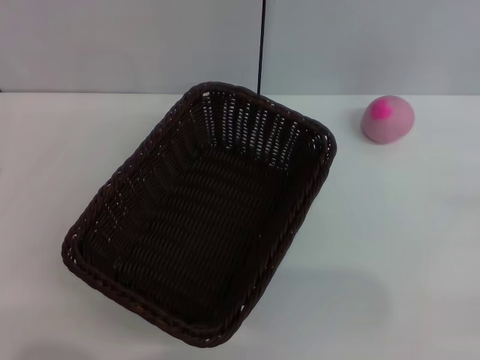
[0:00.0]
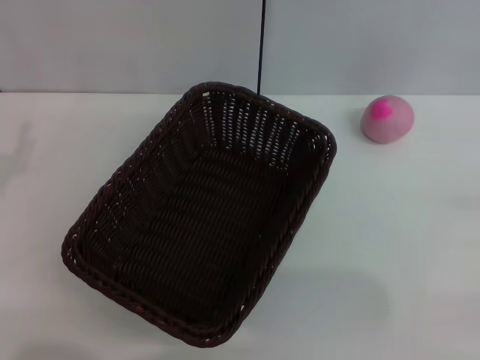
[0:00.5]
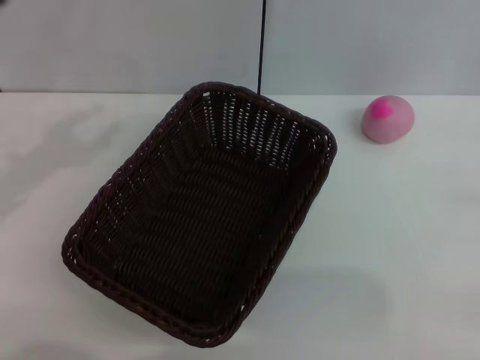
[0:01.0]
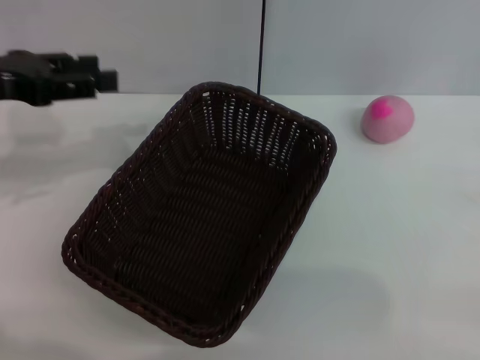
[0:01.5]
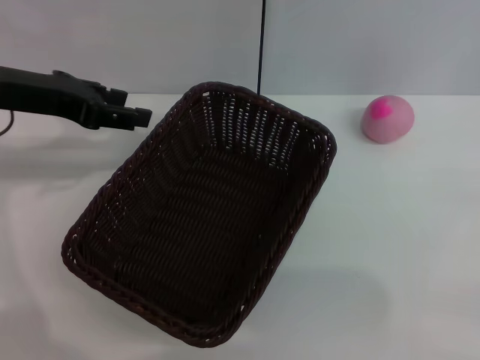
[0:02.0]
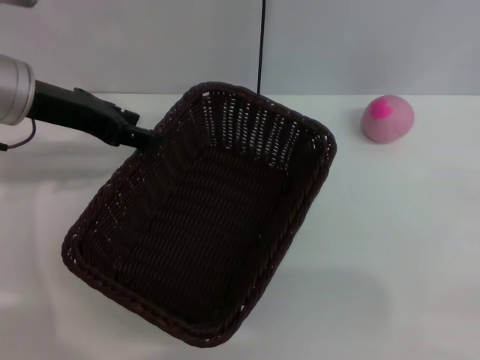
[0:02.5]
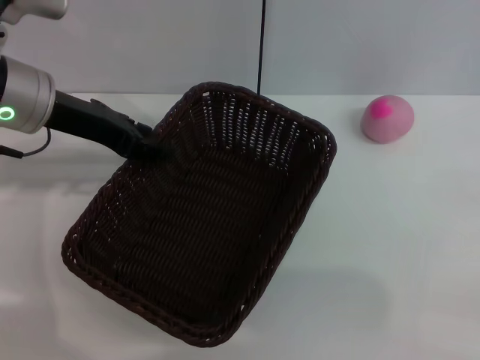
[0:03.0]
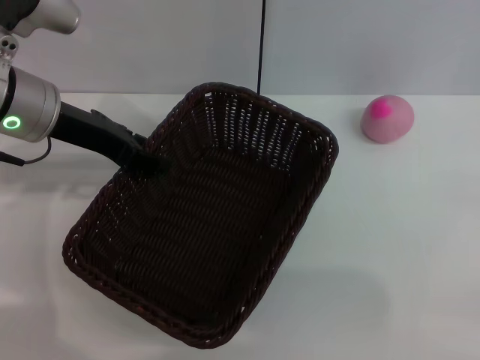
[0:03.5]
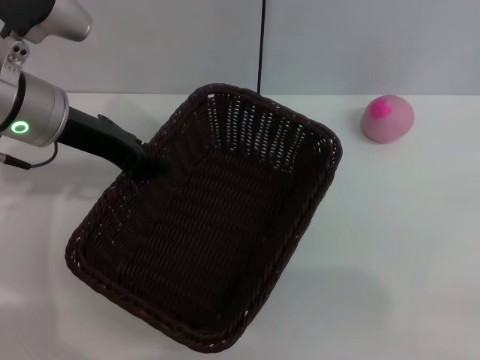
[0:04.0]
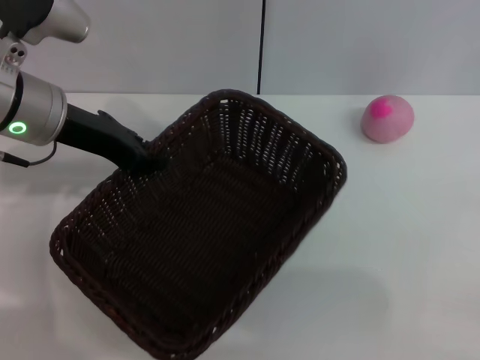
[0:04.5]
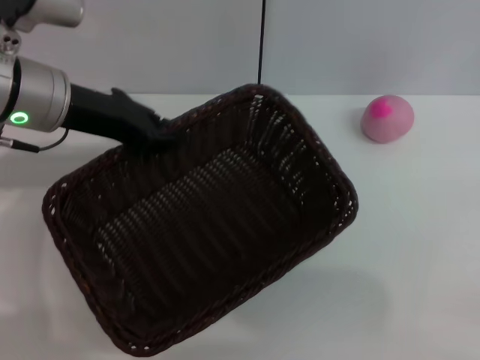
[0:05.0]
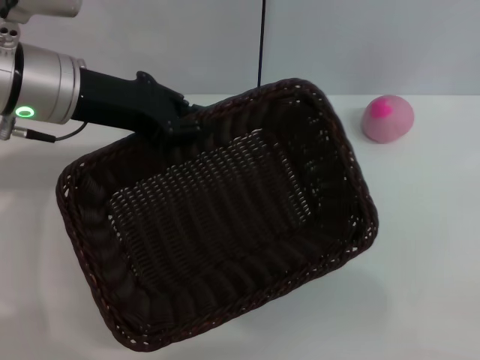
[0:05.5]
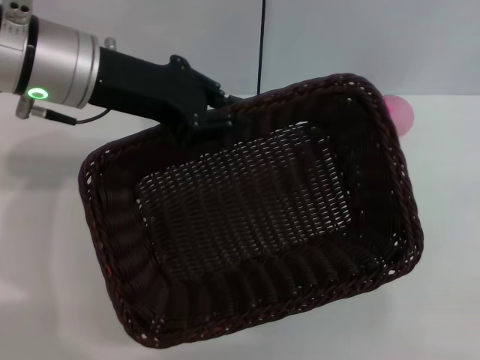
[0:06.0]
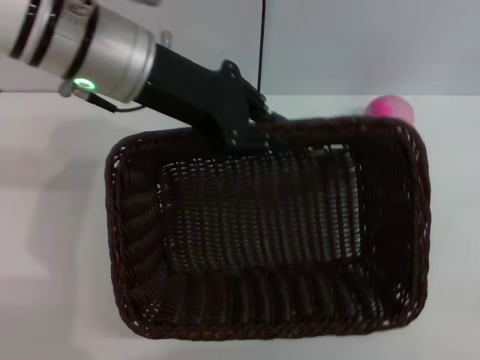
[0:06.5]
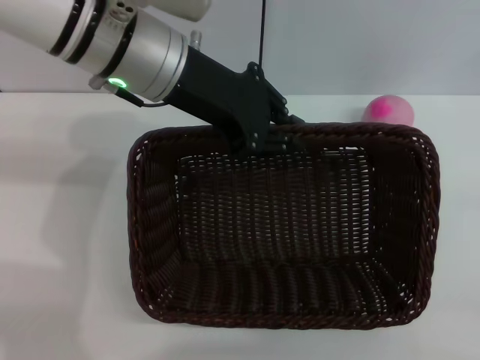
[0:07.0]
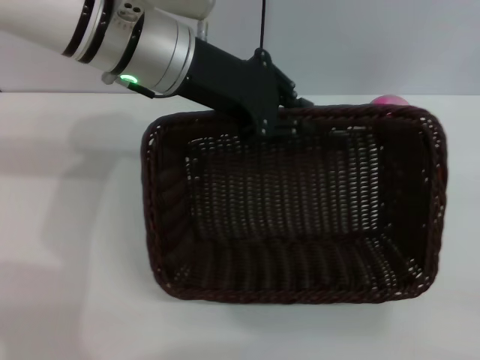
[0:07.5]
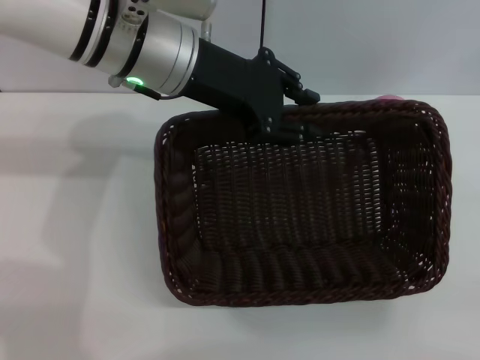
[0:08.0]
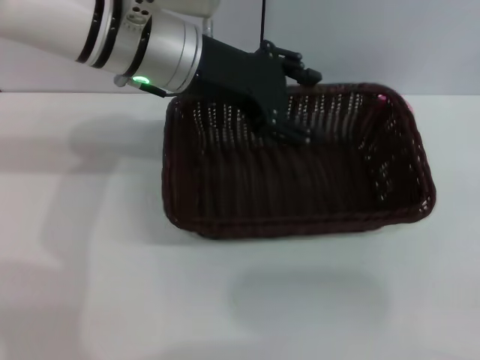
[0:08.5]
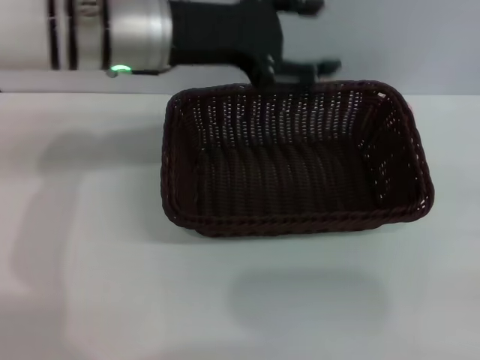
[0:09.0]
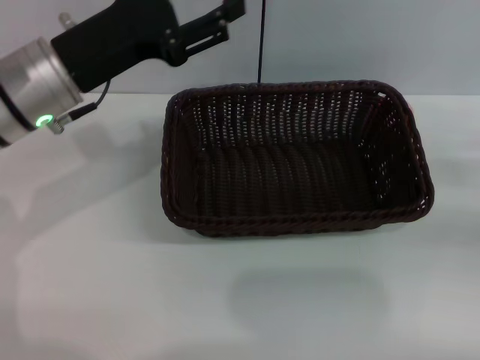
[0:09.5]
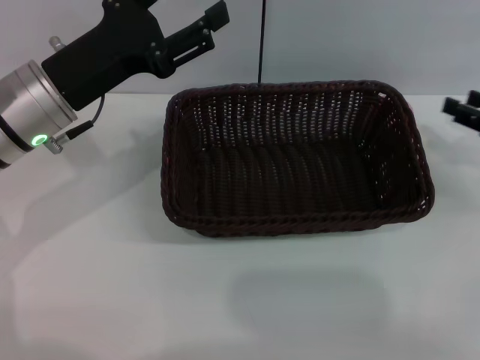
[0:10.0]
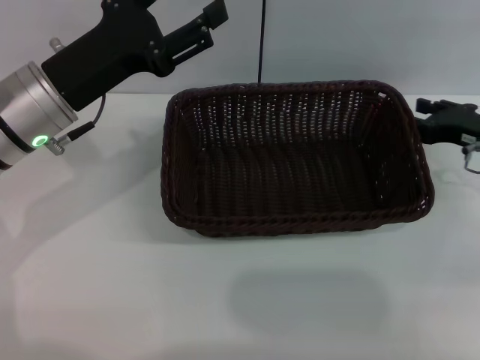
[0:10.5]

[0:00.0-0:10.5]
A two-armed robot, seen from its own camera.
Step, 0:00.0 to 0:05.0: Pick up the dark basket with the left gripper.
Step, 0:05.5 to 0:08.5: Place the dark basket in the center of view with the right gripper.
0:00.0 to 0:02.0: The left gripper shifts roughly 20 cm forward, upward and to the right, and opens its fingers.
0:02.0 to 0:04.0: The left gripper is displaced to the right by about 5 cm.
0:04.0 to 0:06.5: The left gripper moves to the right and upward, about 10 cm, and closes up.
0:06.5 to 0:08.5: The left gripper opens up.
0:08.5 to 0:10.5: The left gripper heads to the left, downward and backward, covering some 15 cm, while the right gripper is displaced forward and to the left by approximately 15 cm.

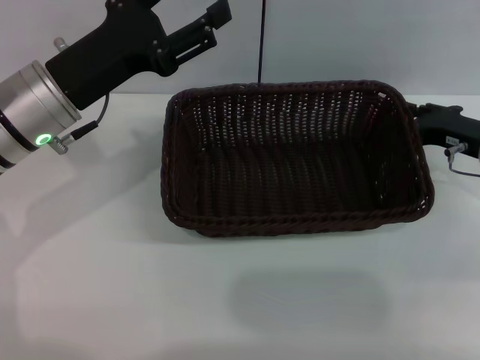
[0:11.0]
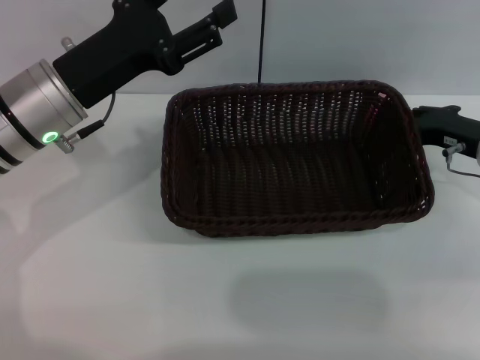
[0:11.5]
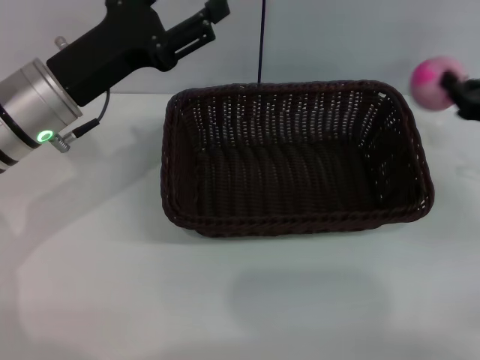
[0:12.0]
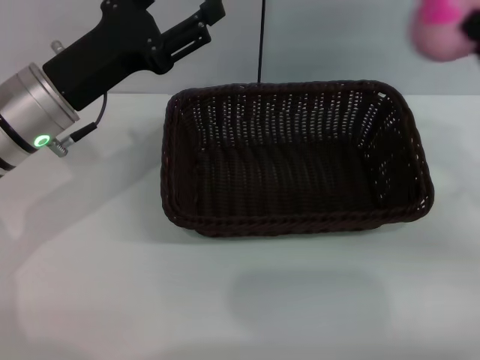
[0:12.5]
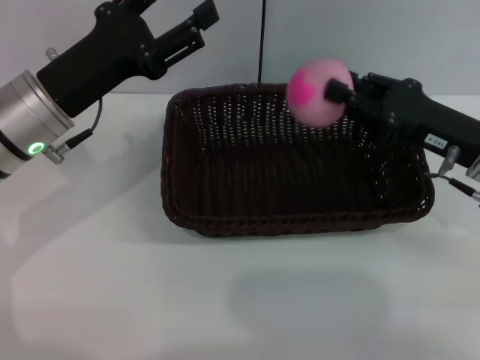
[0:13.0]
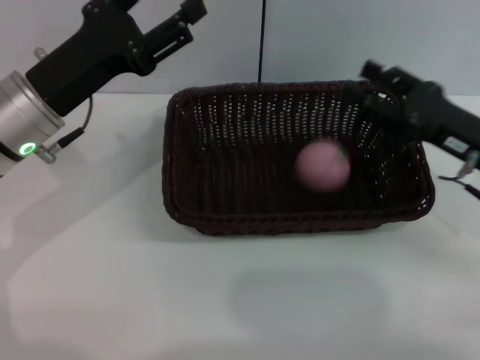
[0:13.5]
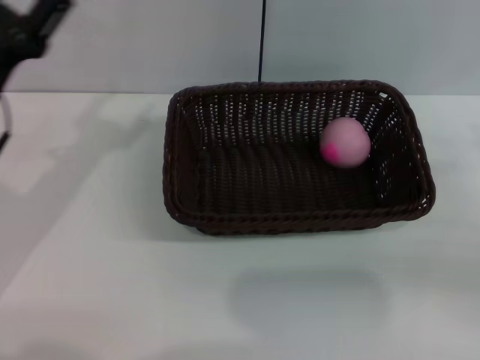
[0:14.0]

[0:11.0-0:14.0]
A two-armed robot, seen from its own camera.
0:11.0 to 0:12.5: The right gripper travels backward and upward by roughly 10 cm, and closes up.
0:12.5 to 0:14.0: The right gripper goes about 5 cm to the right, and opens up. The left gripper heads to the left, covering some 5 cm.
